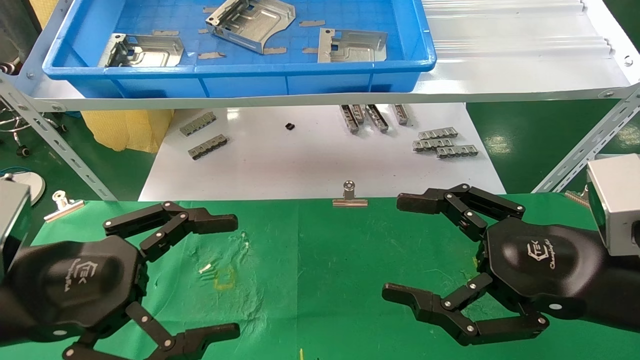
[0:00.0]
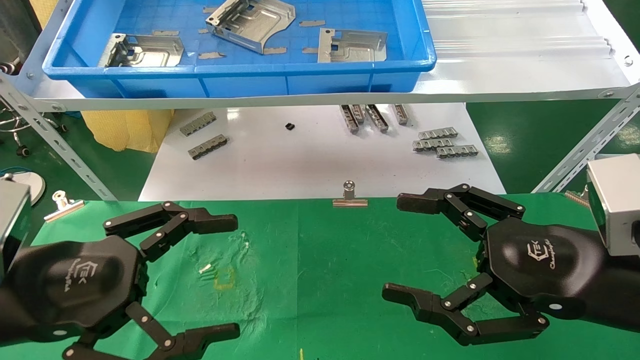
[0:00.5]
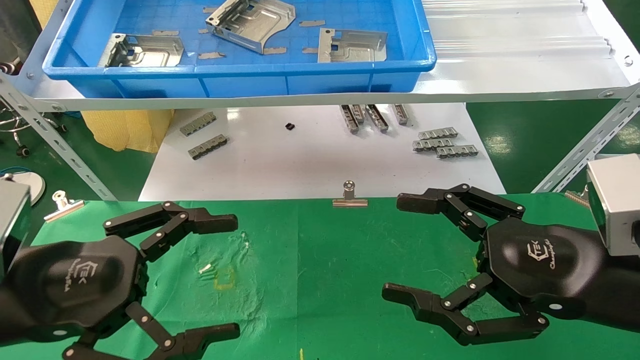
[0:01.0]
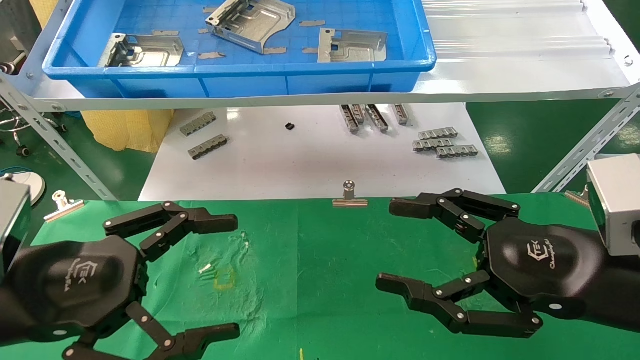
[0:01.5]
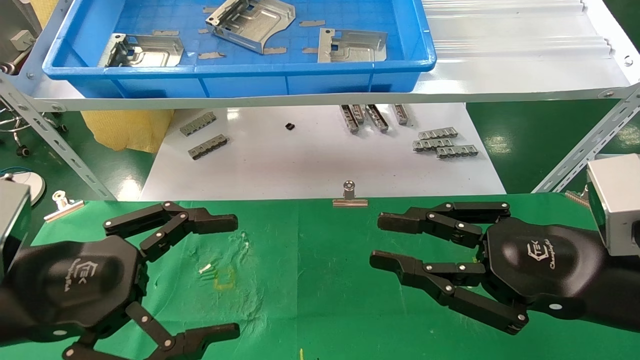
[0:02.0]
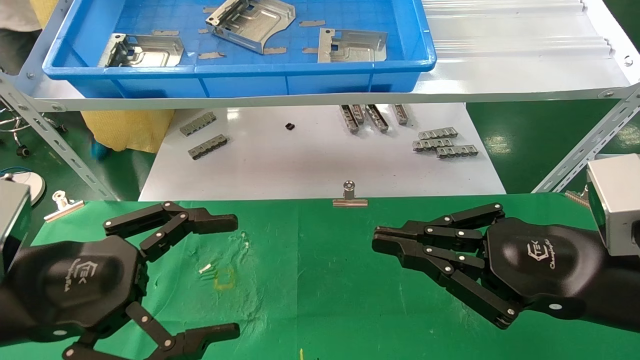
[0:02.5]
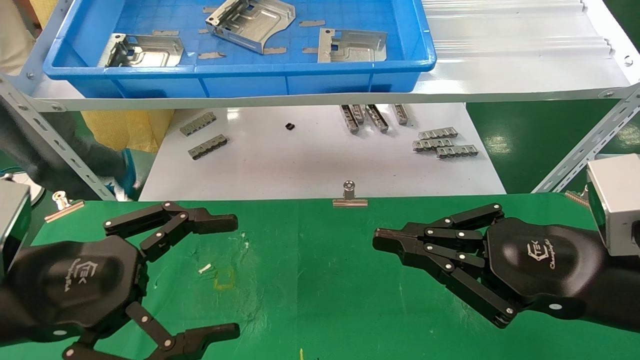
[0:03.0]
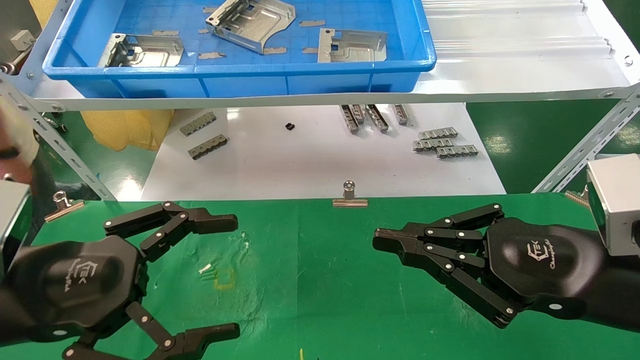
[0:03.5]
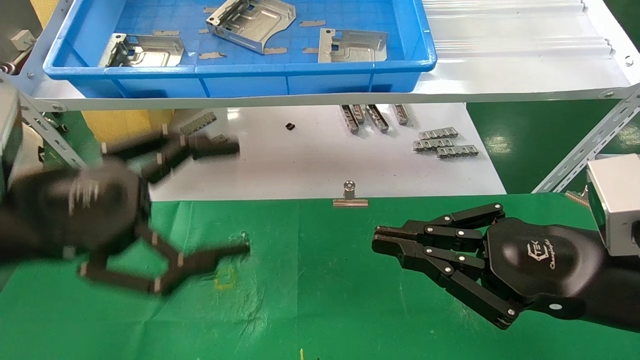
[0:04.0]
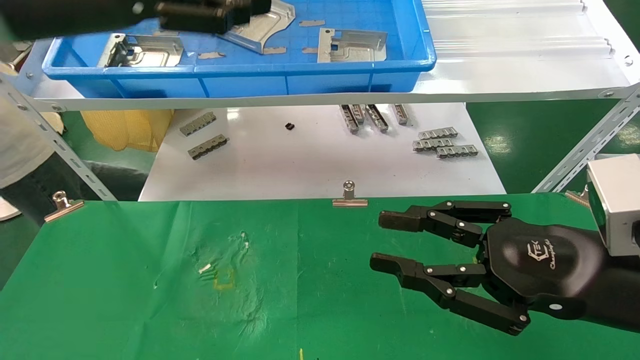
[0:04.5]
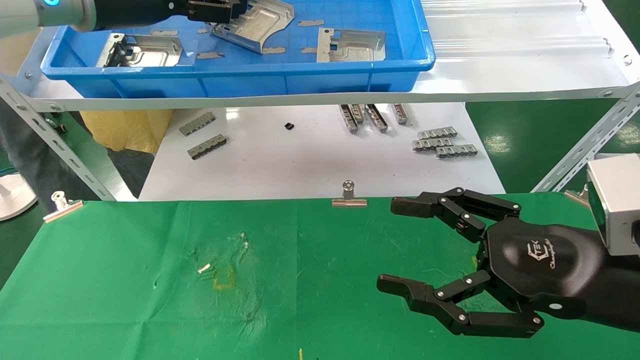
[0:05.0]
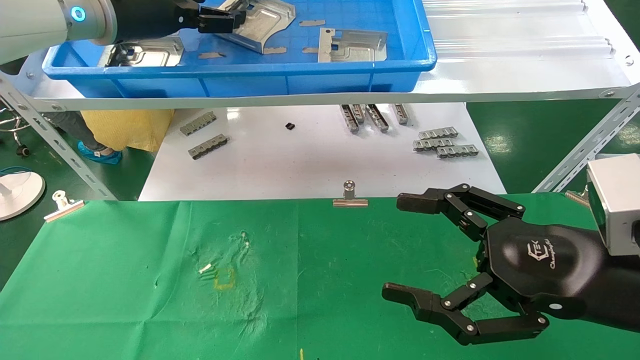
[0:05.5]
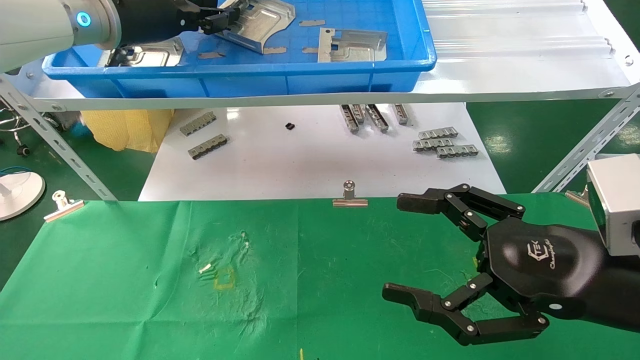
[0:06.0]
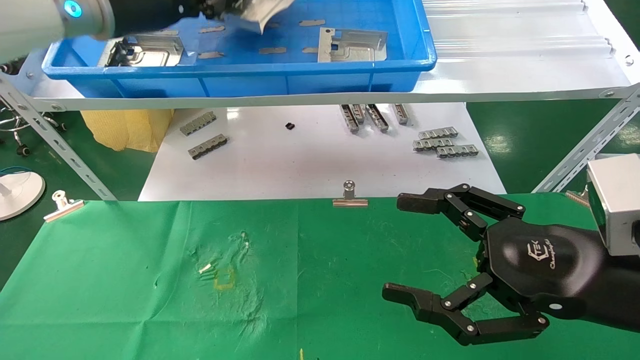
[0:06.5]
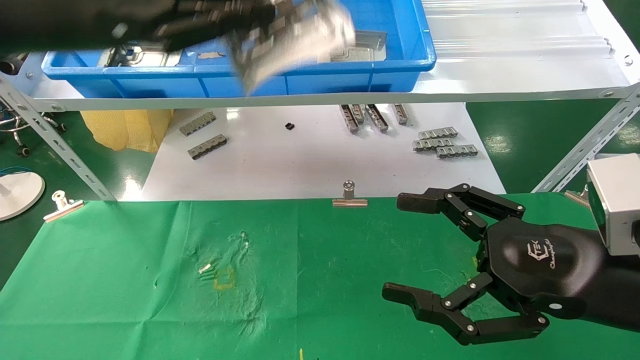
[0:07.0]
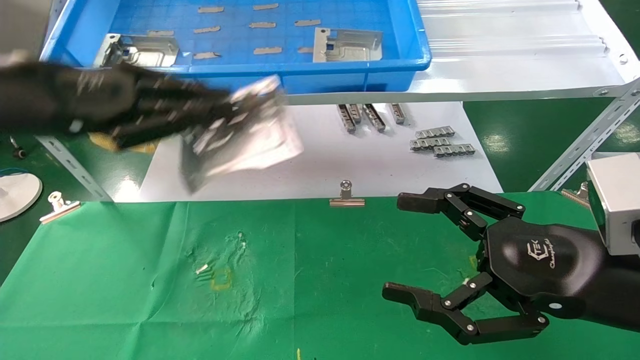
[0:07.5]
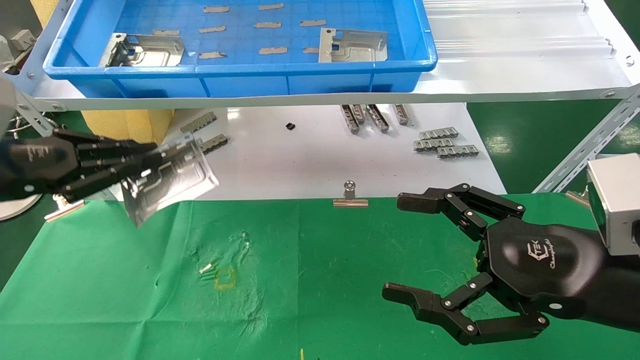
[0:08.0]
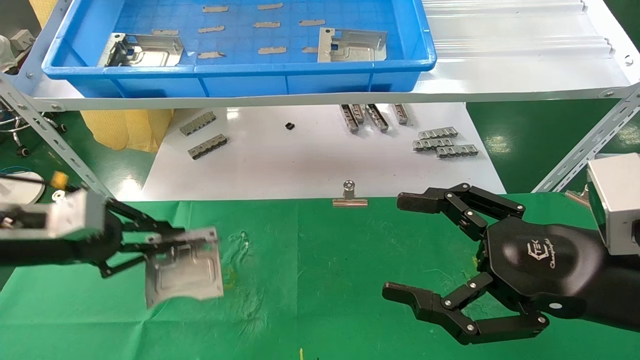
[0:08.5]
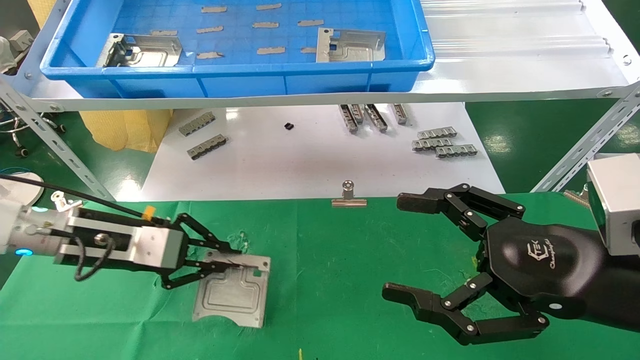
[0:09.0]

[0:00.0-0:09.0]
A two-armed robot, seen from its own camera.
Task of the whole recording: use the mechanical arm to pick up the parts and place them on the table.
Step, 0:04.0 to 0:06.0: Pick up the hard drive bracket from the feeding area.
0:00.0 to 0:02.0: The right gripper closes up.
0:02.0 to 0:04.5: The left gripper is displaced upward and forward by about 25 cm.
0:04.5 to 0:07.0: The left gripper moves approximately 10 cm forward and comes back, and closes up, while the right gripper opens up.
0:07.0 to 0:09.0: The left gripper moves downward, about 25 cm.

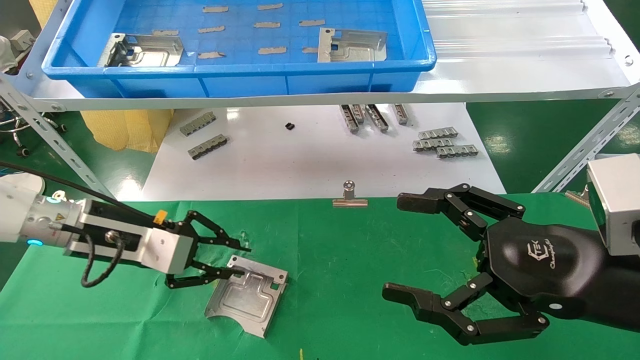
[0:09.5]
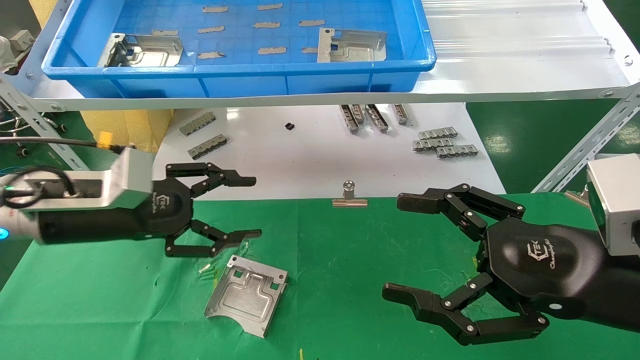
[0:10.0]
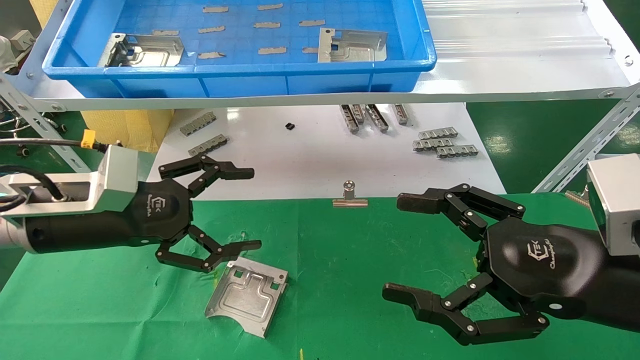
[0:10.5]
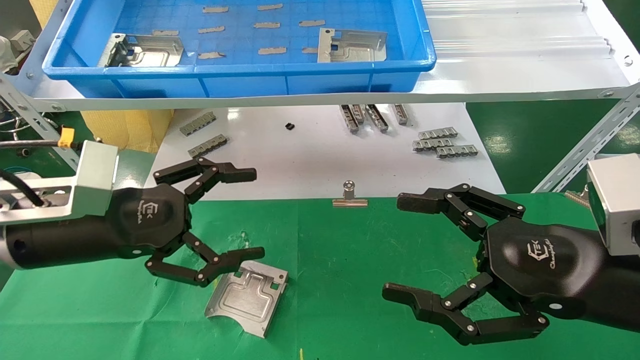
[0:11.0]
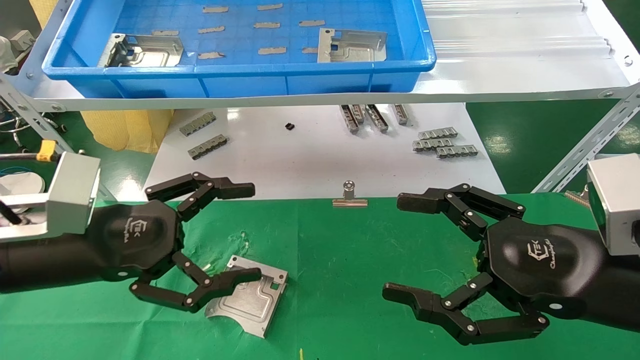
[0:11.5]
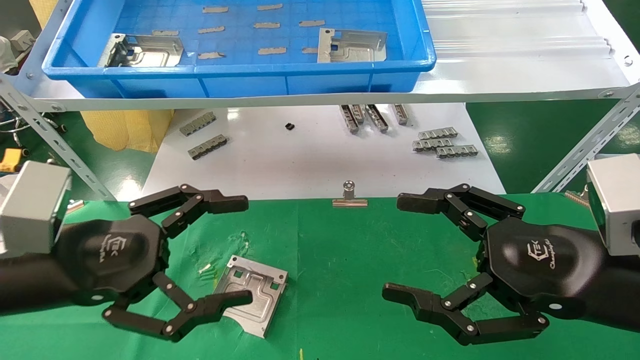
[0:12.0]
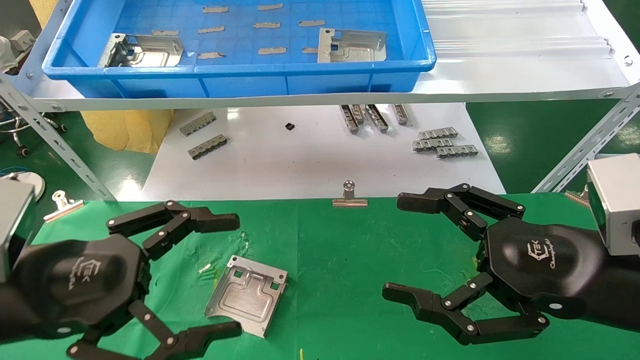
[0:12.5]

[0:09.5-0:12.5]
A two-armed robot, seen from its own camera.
Task of the whole recording: use the mechanical arm to pick up the parts and place them on the table.
0:09.5 to 0:11.0: The left gripper moves backward, some 5 cm, and opens its fingers.
0:11.0 to 0:12.5: The left gripper travels backward by roughly 10 cm.

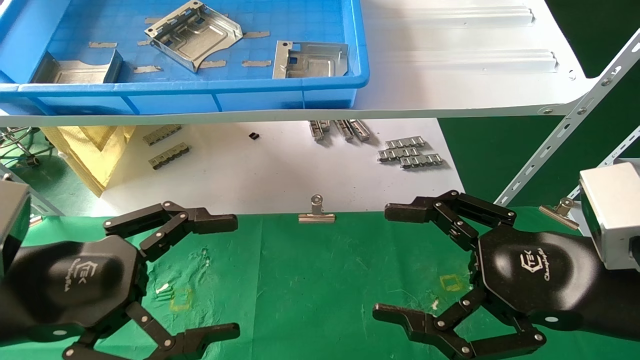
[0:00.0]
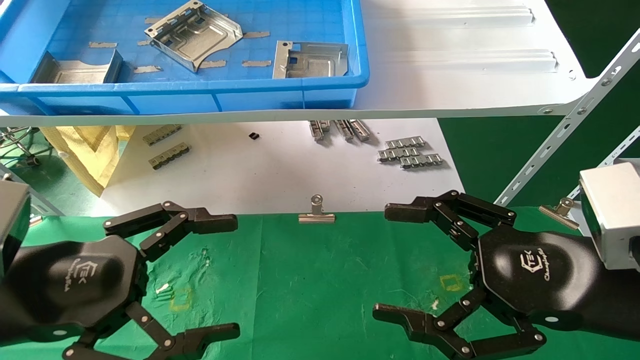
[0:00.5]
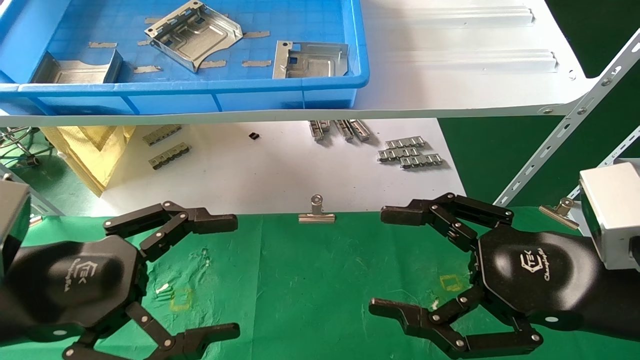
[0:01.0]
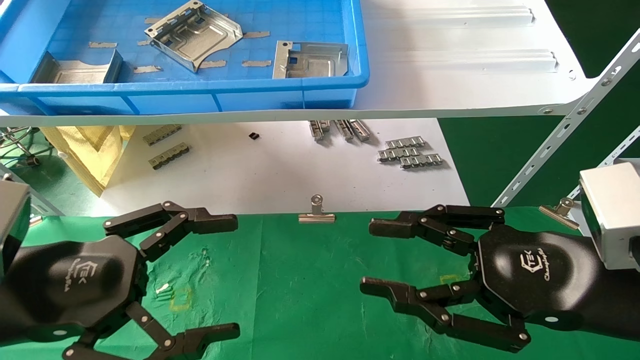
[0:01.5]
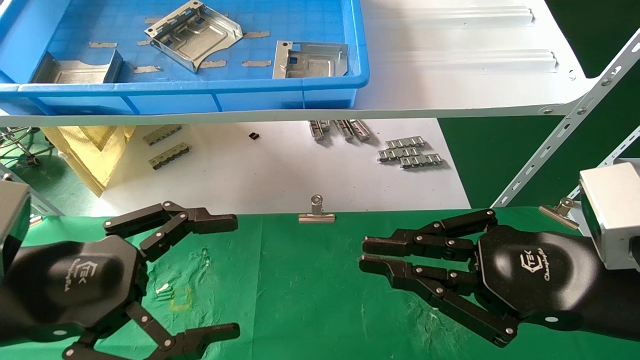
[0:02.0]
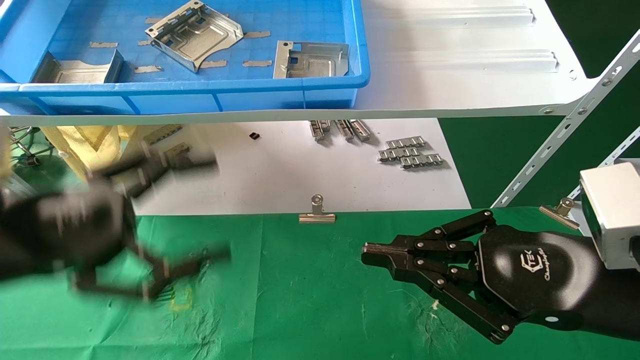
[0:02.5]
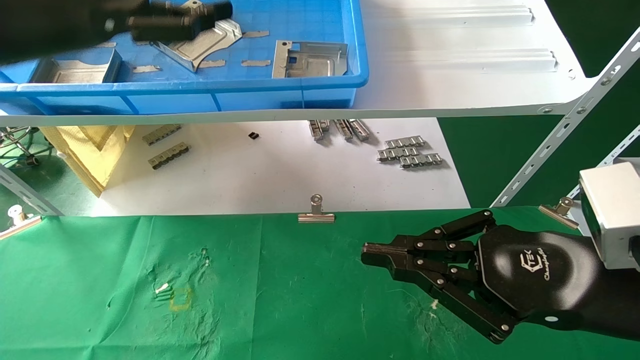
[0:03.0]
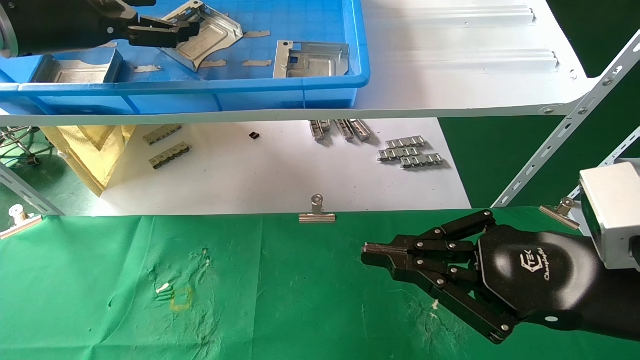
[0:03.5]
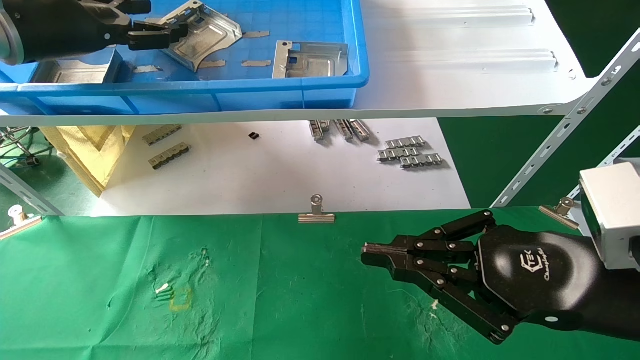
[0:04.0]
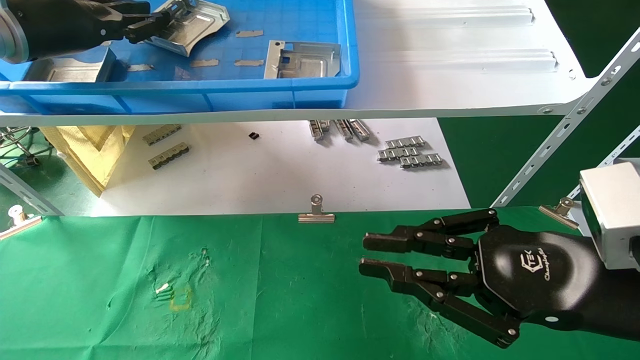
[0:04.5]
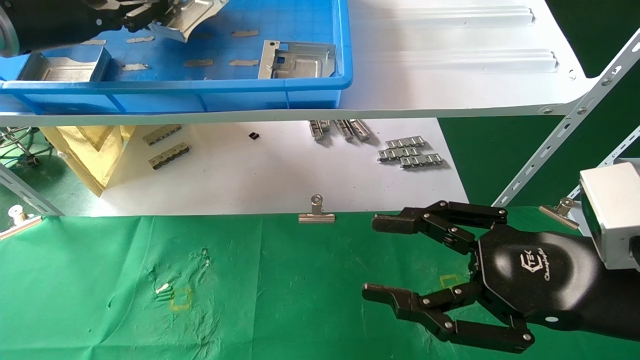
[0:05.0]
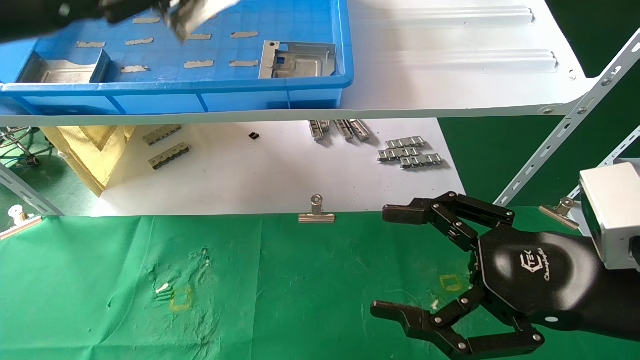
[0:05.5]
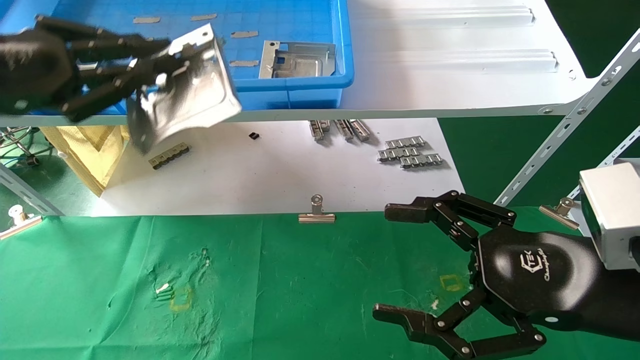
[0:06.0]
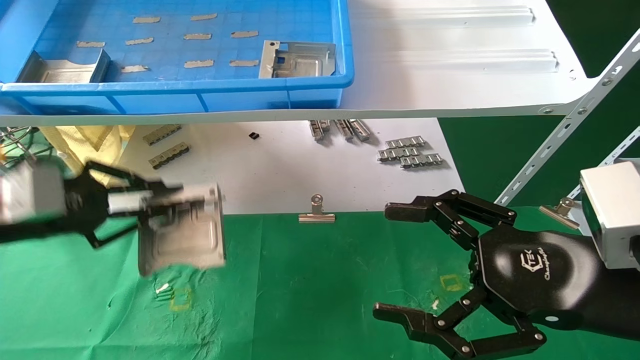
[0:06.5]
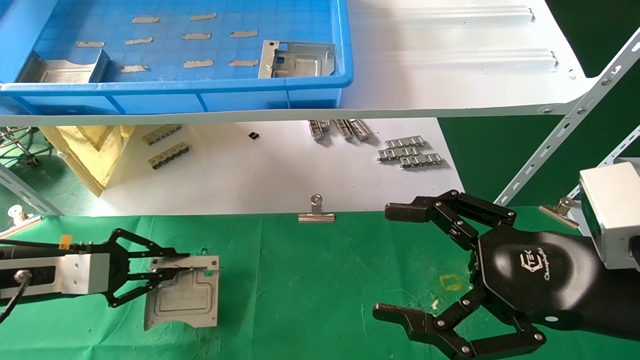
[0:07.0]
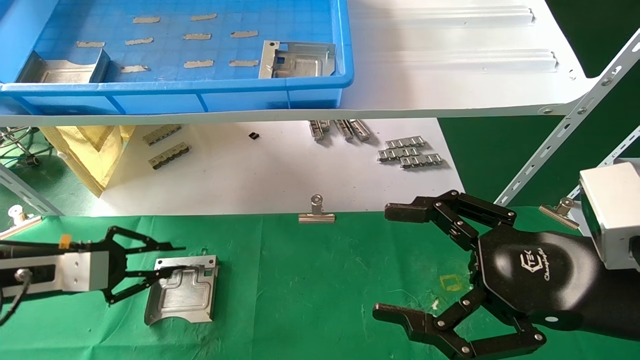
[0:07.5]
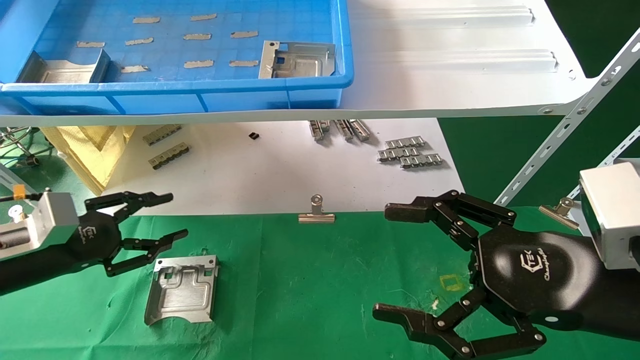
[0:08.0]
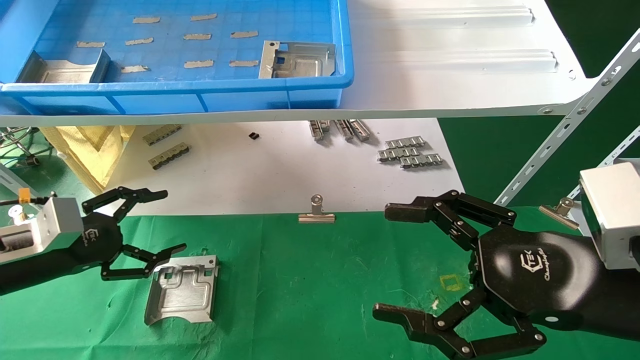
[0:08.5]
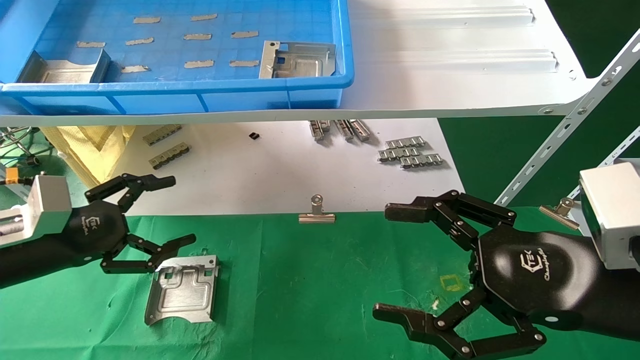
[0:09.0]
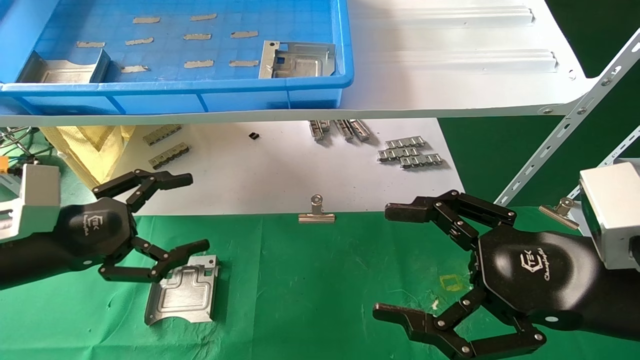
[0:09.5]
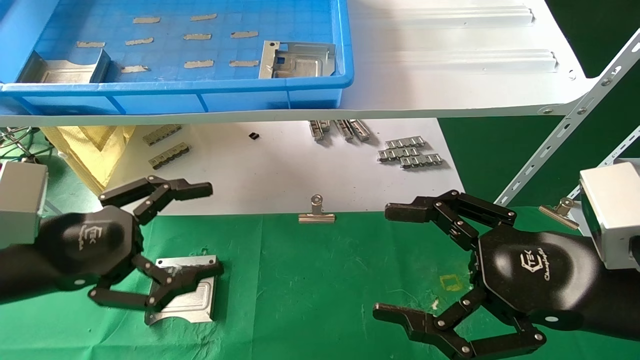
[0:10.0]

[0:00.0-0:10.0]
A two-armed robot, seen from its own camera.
Task of the whole recording: use the mechanical arm to pick up the parts and place them on the table.
Step, 0:01.5 to 0:04.5: Pick up the hard drive bracket from the feeding area.
Step, 0:05.0 to 0:07.5: Place the hard drive bracket into the box.
0:00.0 to 0:02.0: The right gripper closes its fingers.
0:02.0 to 0:04.0: The left gripper shifts about 30 cm forward and upward.
0:04.0 to 0:06.0: The right gripper opens its fingers. Meanwhile the left gripper travels backward and downward by some 15 cm, and closes.
0:06.0 to 0:08.0: The left gripper is displaced downward by roughly 20 cm, and opens up.
0:08.0 to 0:10.0: The left gripper heads backward, to the right and upward, covering about 15 cm, and opens its fingers.
